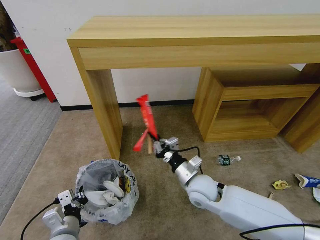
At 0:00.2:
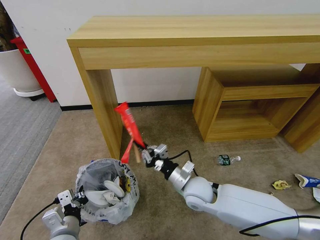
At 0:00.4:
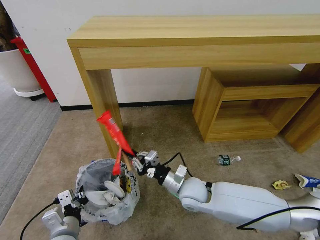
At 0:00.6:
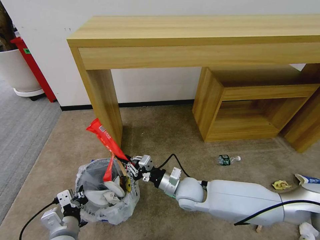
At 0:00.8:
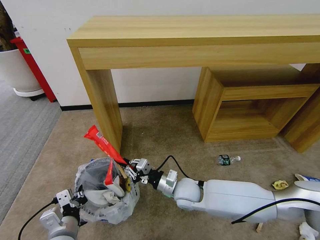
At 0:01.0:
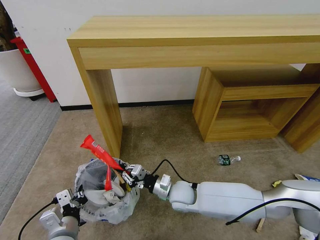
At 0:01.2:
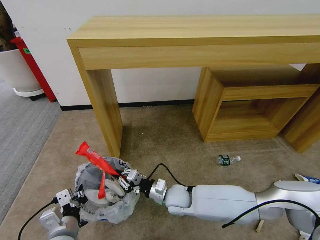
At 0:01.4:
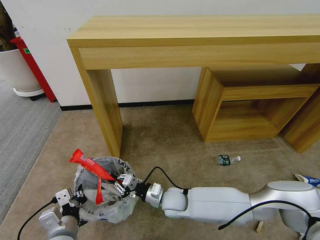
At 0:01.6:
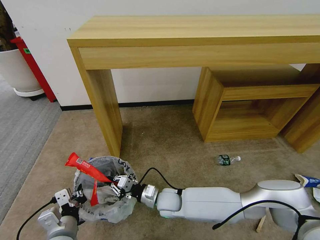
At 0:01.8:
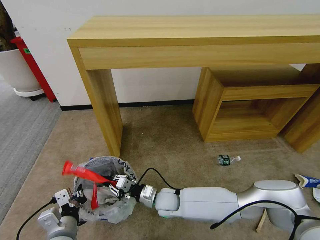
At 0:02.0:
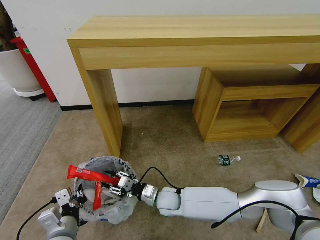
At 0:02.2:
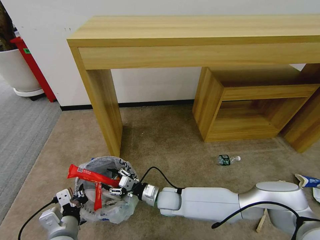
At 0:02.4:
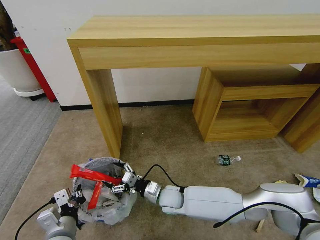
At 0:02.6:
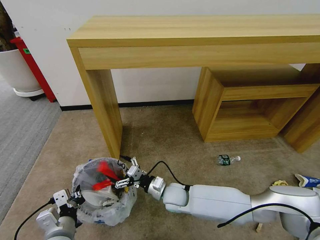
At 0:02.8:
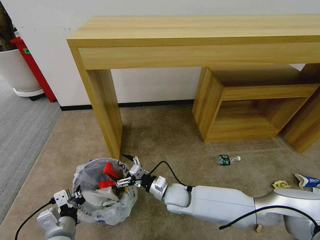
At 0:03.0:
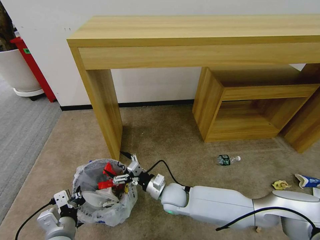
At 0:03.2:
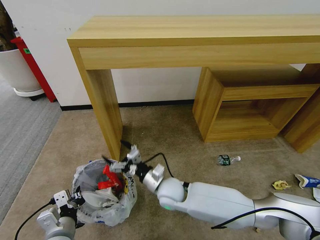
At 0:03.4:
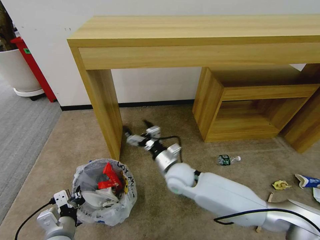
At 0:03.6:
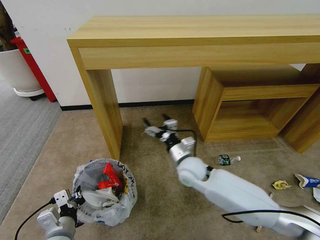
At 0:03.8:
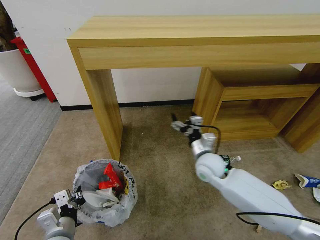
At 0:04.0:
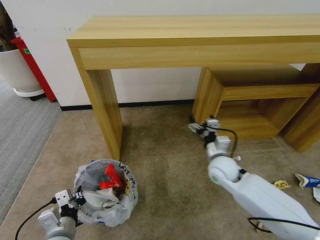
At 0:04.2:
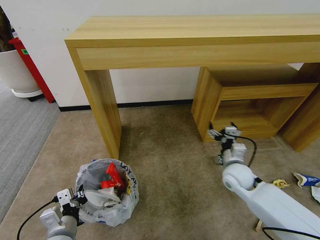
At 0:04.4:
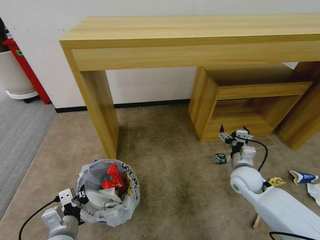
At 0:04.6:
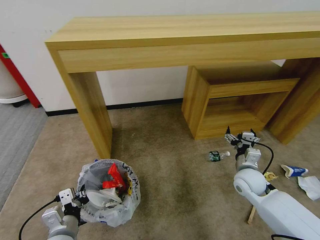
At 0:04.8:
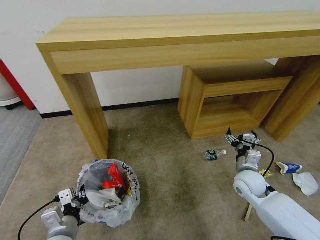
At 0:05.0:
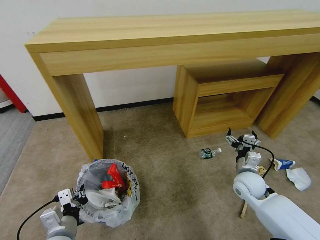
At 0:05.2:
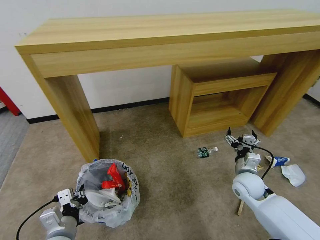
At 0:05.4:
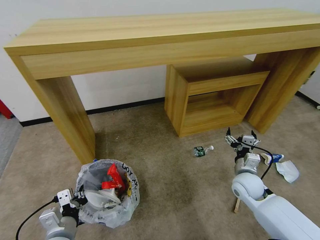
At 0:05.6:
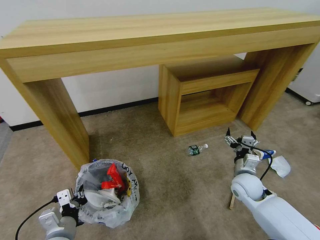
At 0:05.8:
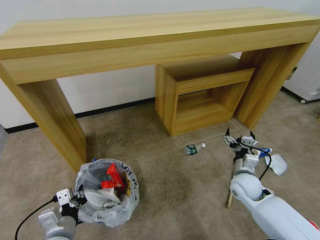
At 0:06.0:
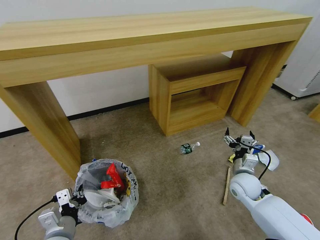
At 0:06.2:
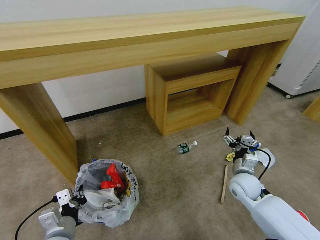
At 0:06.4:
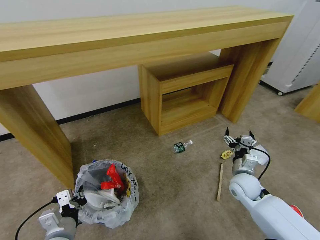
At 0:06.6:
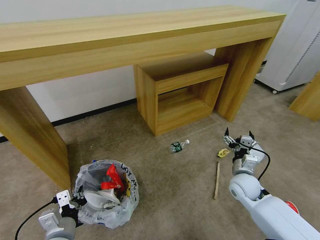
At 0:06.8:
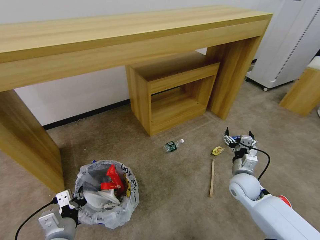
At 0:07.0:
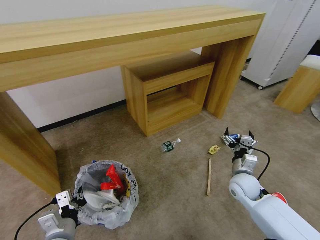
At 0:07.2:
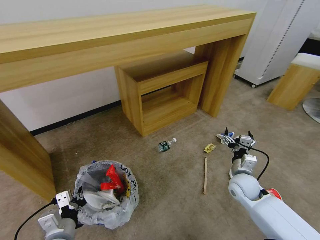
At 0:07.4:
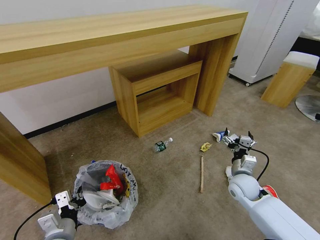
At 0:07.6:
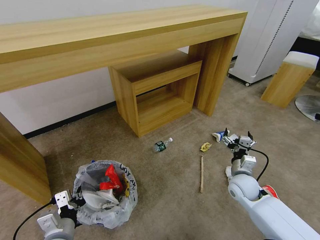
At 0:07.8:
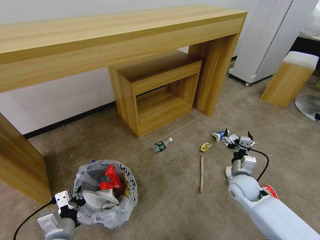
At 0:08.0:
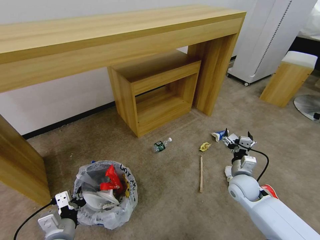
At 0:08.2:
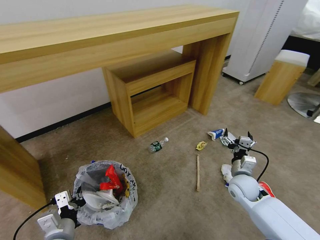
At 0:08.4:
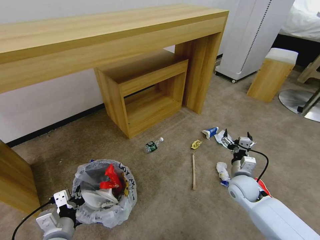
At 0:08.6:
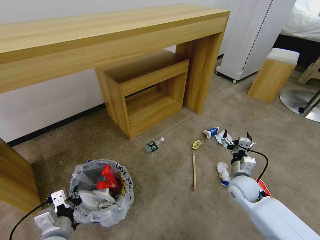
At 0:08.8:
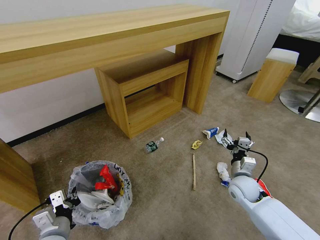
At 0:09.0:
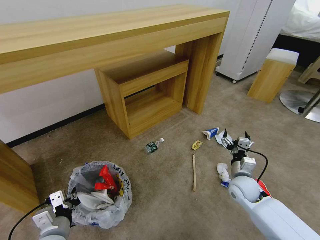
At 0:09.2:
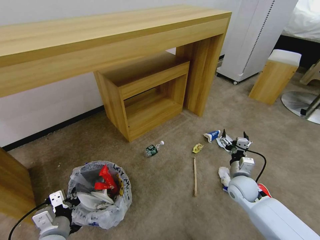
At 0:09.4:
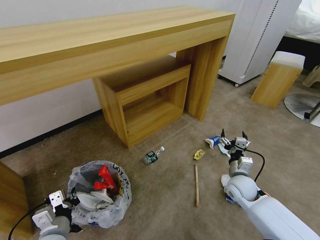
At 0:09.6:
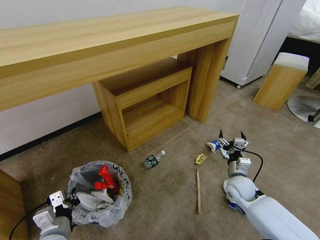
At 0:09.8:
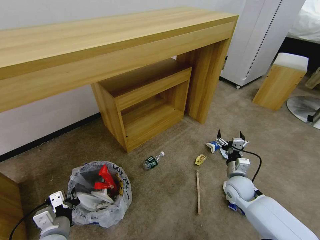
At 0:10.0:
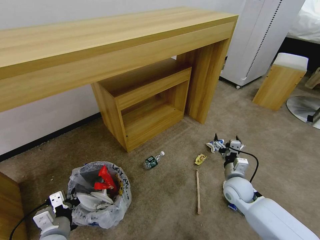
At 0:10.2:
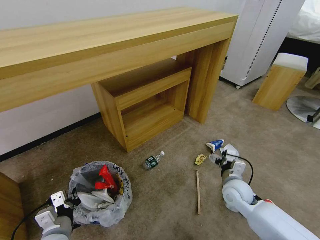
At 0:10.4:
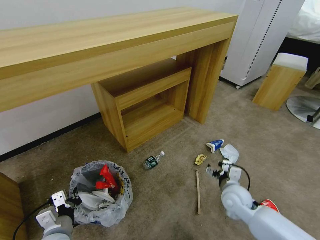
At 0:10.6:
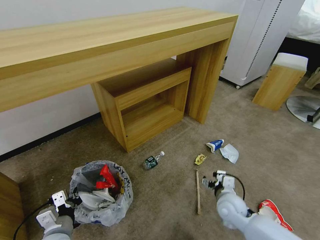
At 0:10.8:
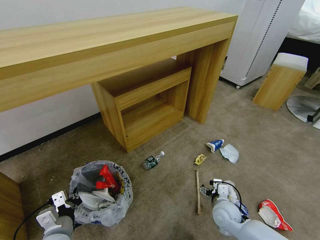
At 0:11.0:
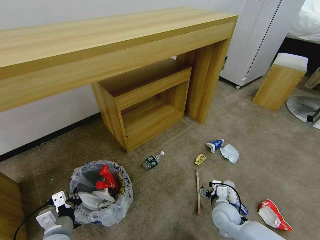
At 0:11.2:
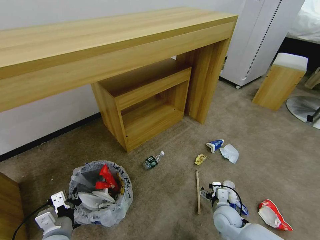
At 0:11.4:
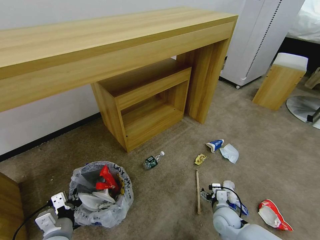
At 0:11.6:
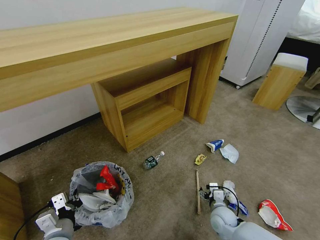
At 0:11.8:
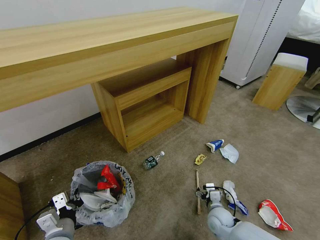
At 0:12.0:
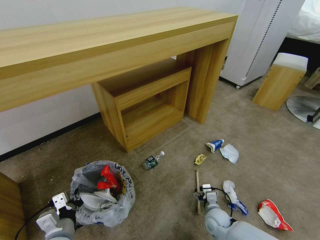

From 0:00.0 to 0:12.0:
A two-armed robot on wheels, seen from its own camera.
Task of the whole recording: Pick up the trash bin and place the garbage on the floor into it.
From 0:00.0 to 0:01.6: The right gripper goes about 15 cm downward and to the left.
From 0:01.6 to 0:03.0: The right gripper opens up.
From 0:03.0 to 0:04.4: The right gripper heads to the right, covering roughly 25 cm.
From 0:09.0 to 0:10.4: The right gripper changes place by approximately 5 cm.
From 0:10.4 to 0:12.0: The right gripper shifts about 15 cm downward.

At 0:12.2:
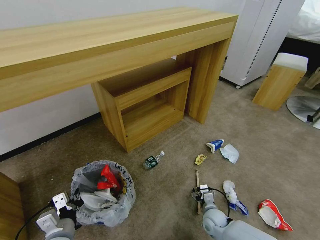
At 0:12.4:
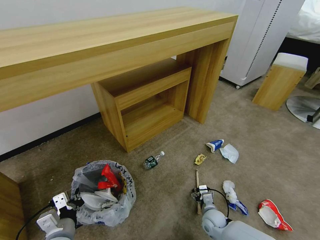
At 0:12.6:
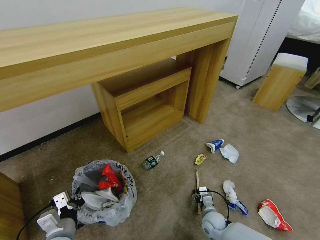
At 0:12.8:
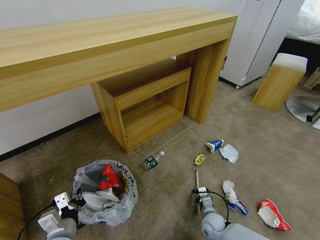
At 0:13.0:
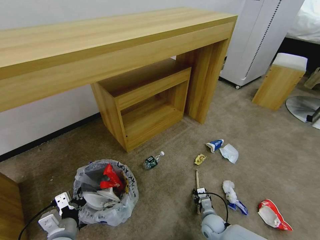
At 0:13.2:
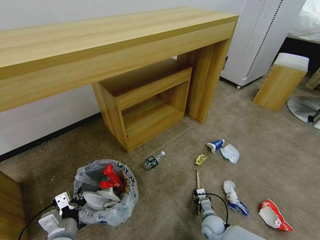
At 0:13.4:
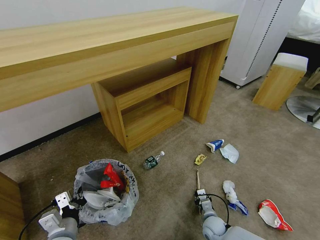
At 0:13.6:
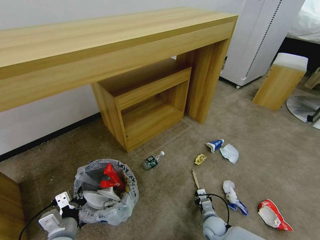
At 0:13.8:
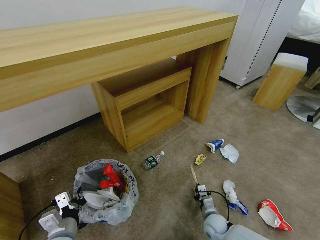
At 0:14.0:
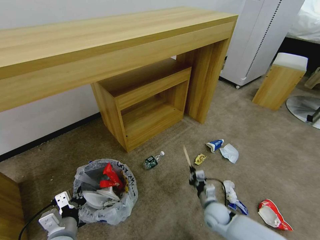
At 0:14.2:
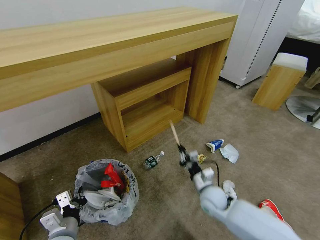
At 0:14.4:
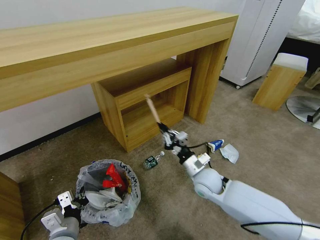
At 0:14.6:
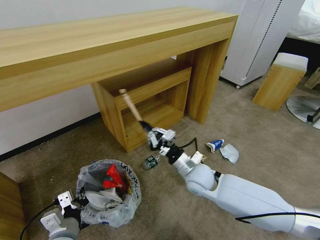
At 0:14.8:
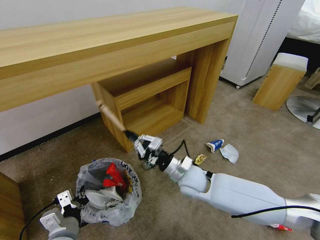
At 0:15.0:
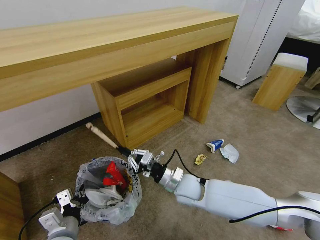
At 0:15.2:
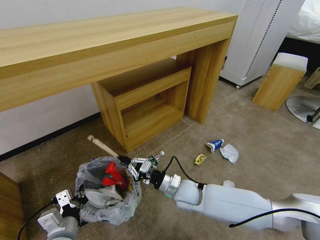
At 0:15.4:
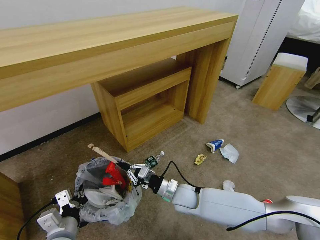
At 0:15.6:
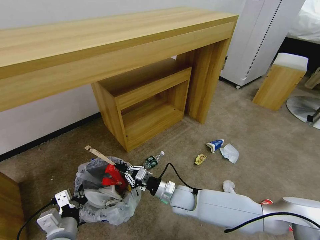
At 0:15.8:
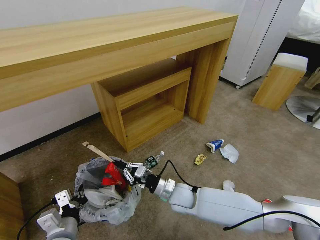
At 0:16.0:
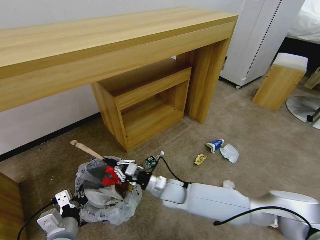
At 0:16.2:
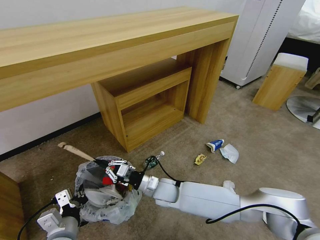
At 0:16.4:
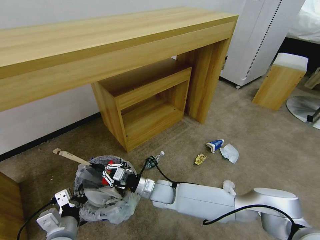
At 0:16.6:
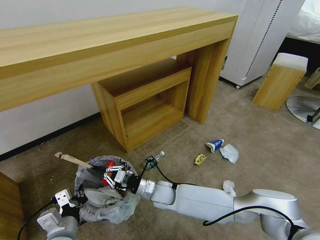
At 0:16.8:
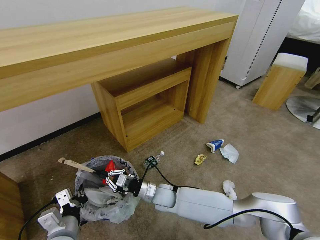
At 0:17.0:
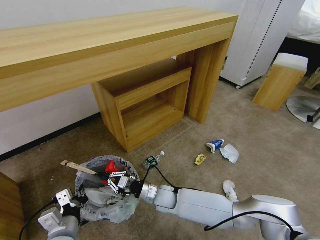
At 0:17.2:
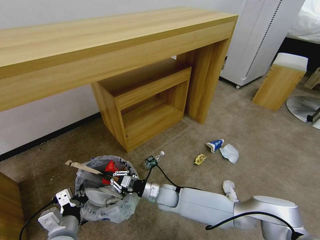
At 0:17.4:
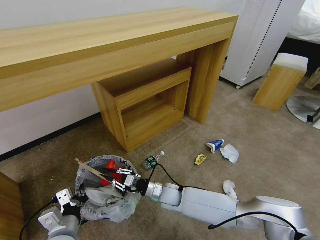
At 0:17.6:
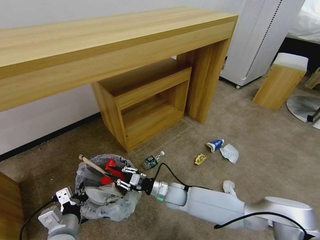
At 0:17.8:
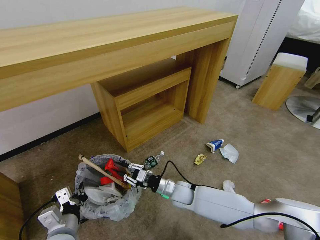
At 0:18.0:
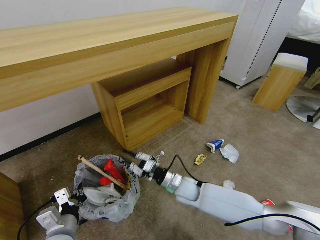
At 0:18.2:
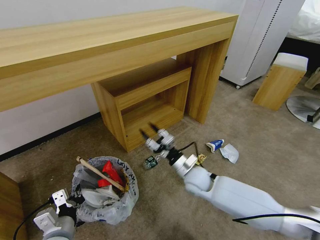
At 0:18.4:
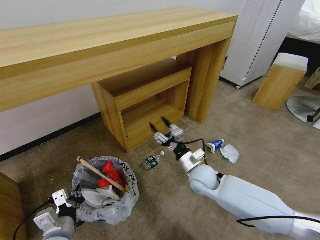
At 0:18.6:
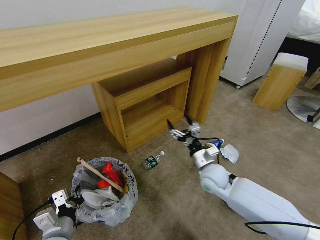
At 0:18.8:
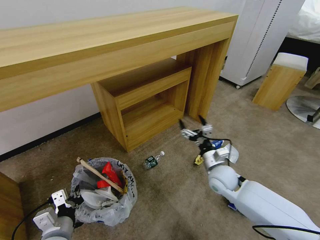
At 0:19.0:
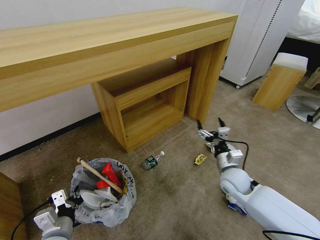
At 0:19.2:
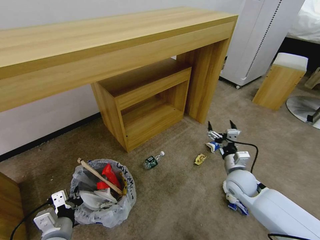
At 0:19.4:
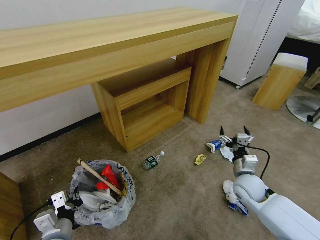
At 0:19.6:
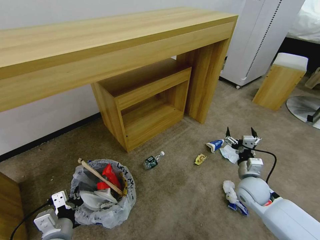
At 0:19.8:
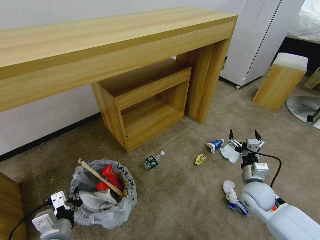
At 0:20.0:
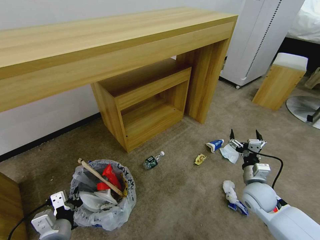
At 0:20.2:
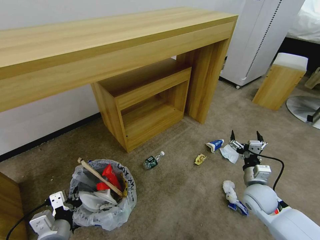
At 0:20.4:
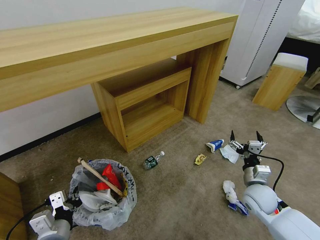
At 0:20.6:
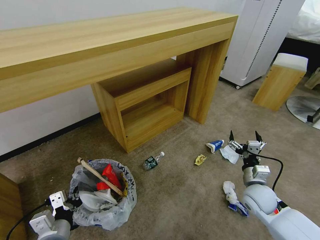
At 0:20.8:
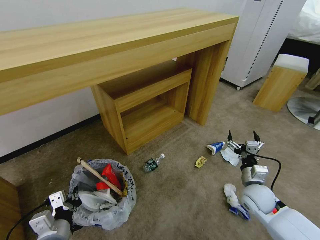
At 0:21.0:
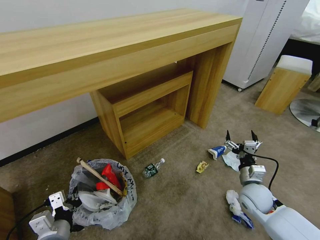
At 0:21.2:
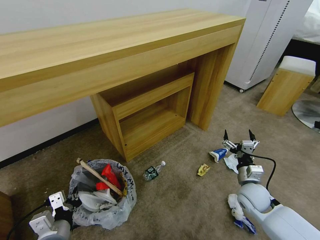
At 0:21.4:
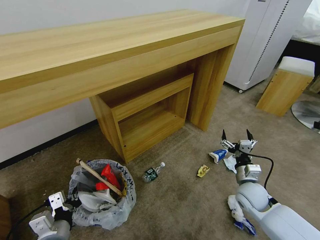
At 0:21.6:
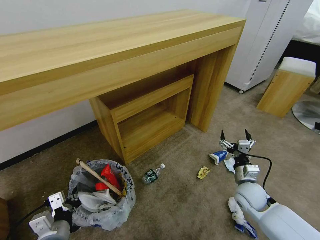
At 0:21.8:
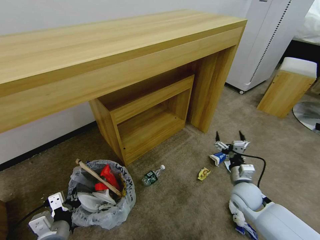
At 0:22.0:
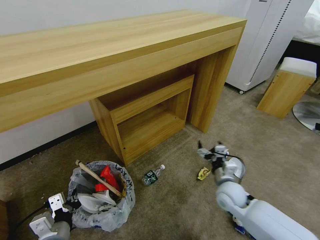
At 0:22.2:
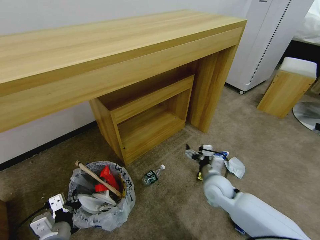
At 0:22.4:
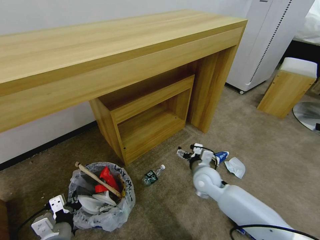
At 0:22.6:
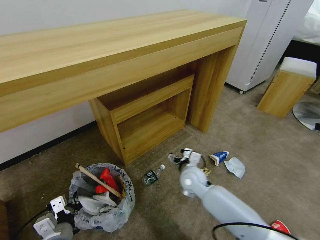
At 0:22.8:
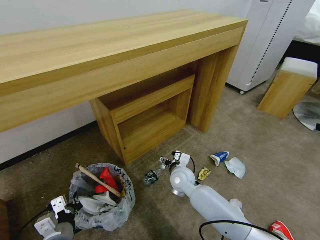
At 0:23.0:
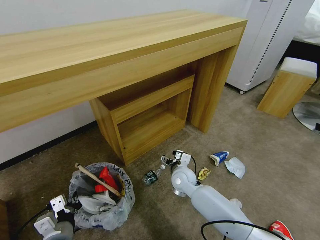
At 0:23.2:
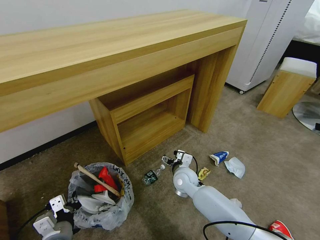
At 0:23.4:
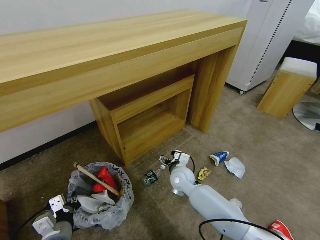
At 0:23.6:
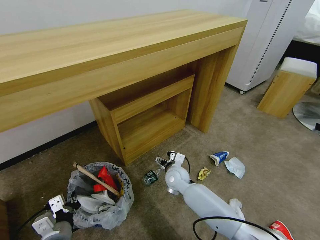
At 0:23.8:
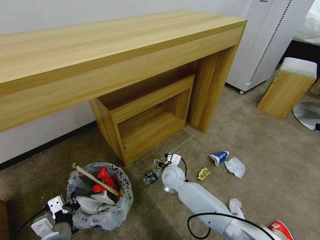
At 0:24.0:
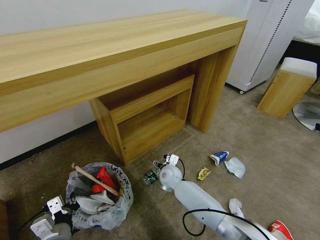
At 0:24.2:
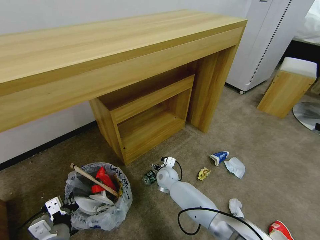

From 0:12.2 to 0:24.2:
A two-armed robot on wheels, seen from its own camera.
Task of the whole recording: Pick up the trash bin and place the garbage on the floor into it.
From 0:12.2 to 0:13.8: The right gripper closes its fingers.
From 0:13.8 to 0:15.2: The right gripper moves upward and to the left, about 25 cm.
From 0:15.2 to 0:16.6: The right gripper heads to the left, covering approximately 10 cm.
From 0:16.6 to 0:18.2: The right gripper goes some 10 cm to the right, and opens.
From 0:18.2 to 0:19.8: The right gripper travels to the right by some 20 cm, and opens.
From 0:21.2 to 0:22.6: The right gripper is displaced to the left by some 20 cm.
From 0:22.6 to 0:24.2: The right gripper goes roughly 15 cm downward, to the left and forward.
